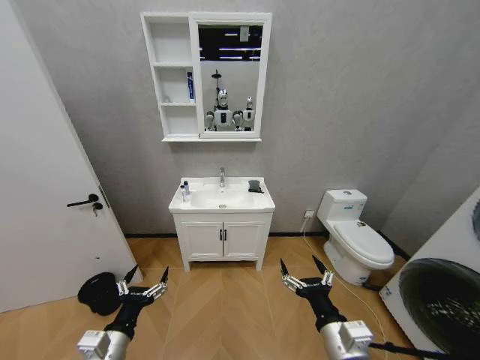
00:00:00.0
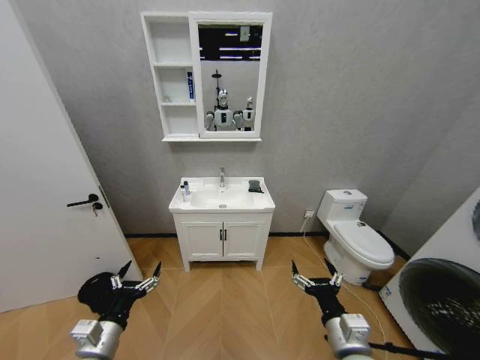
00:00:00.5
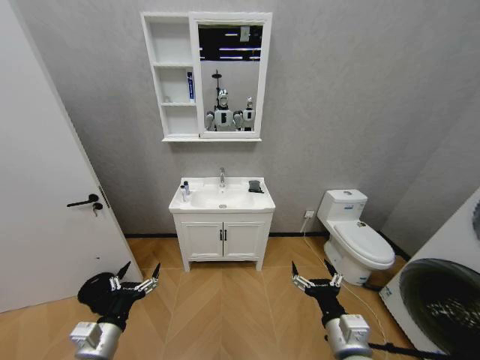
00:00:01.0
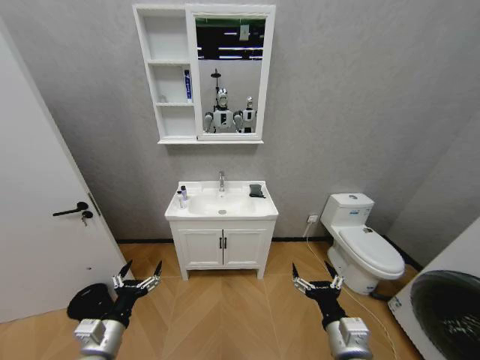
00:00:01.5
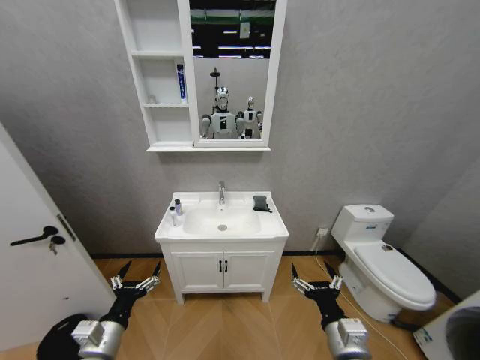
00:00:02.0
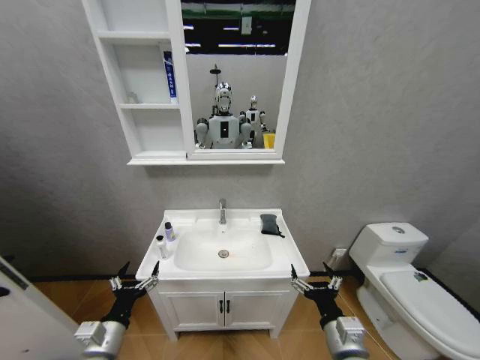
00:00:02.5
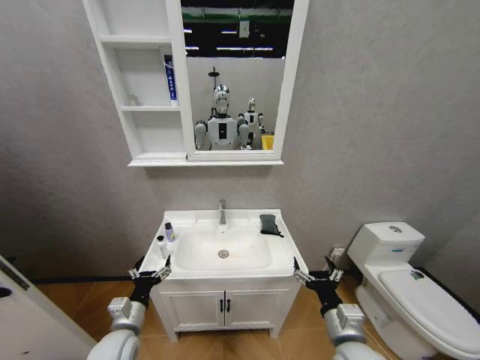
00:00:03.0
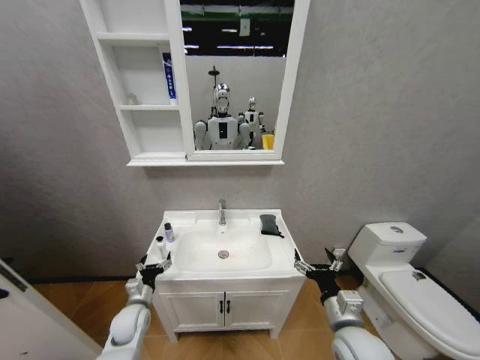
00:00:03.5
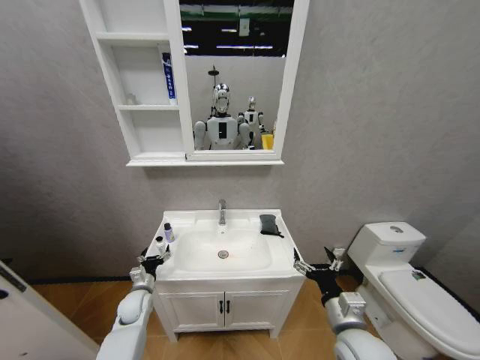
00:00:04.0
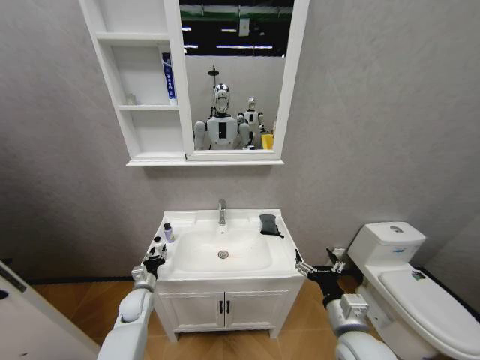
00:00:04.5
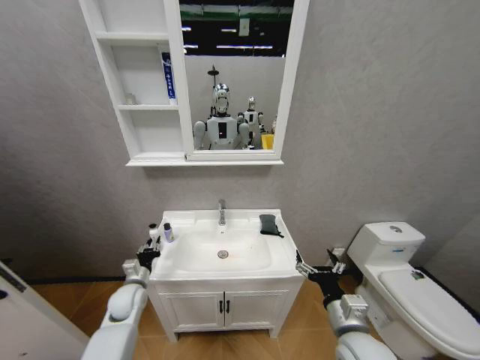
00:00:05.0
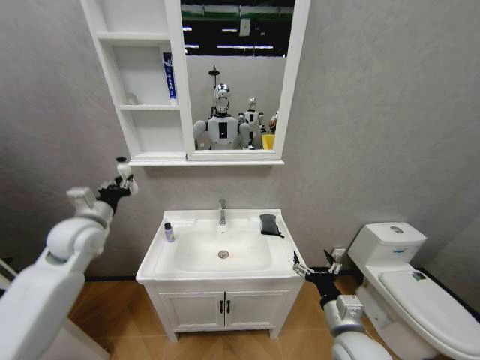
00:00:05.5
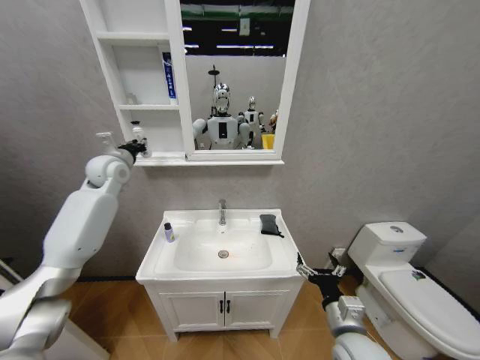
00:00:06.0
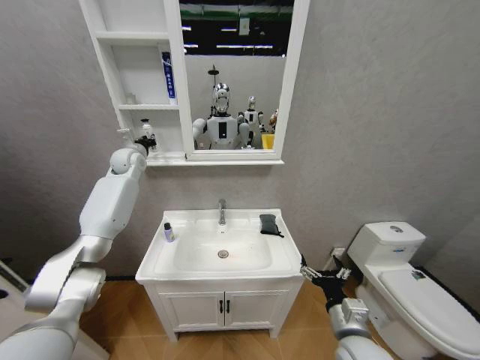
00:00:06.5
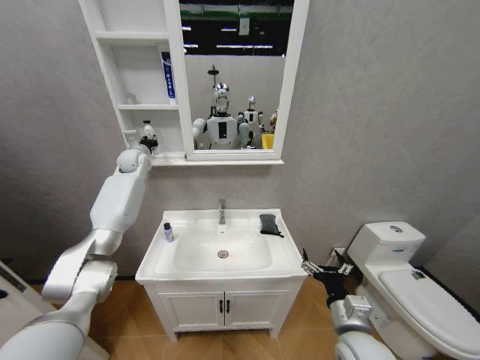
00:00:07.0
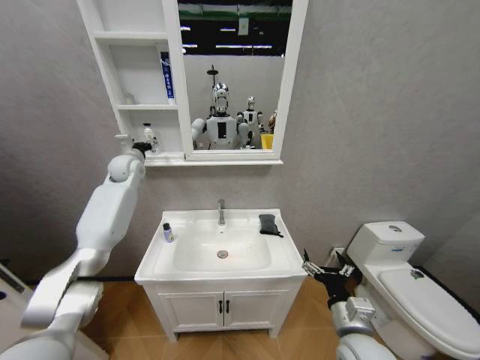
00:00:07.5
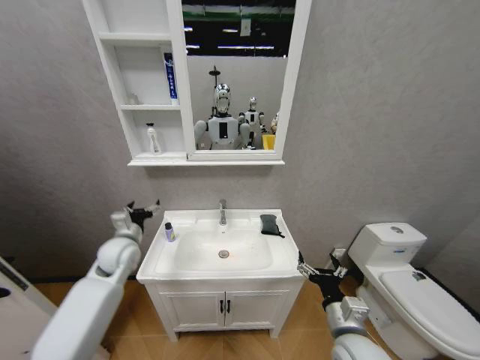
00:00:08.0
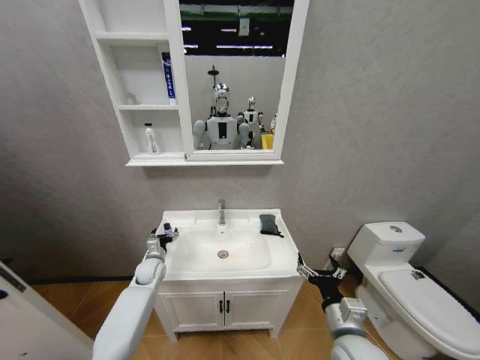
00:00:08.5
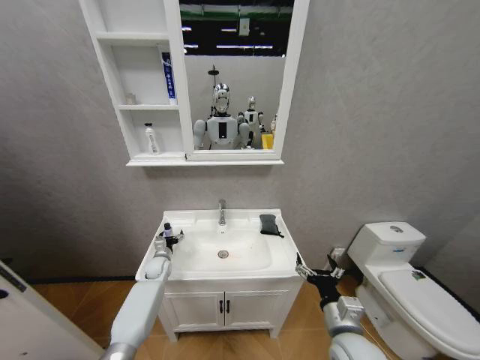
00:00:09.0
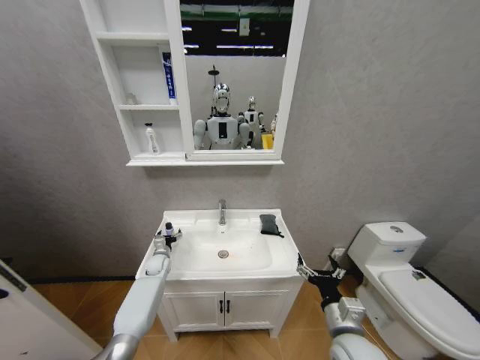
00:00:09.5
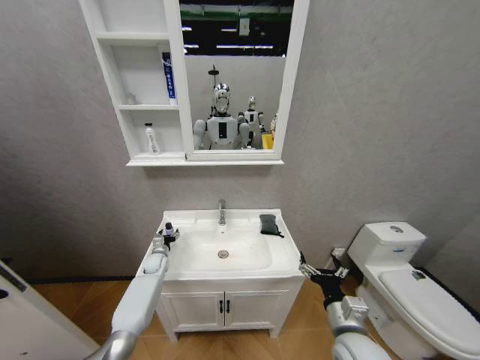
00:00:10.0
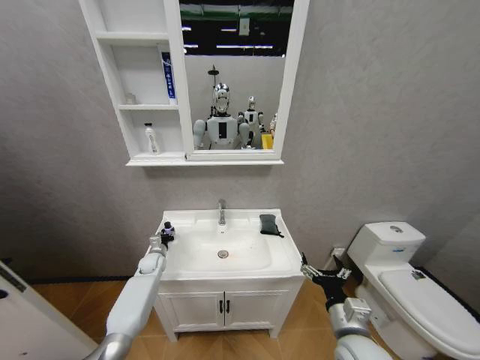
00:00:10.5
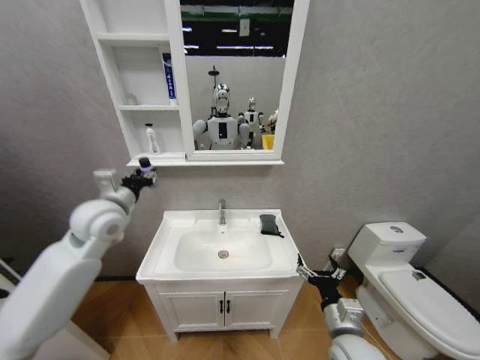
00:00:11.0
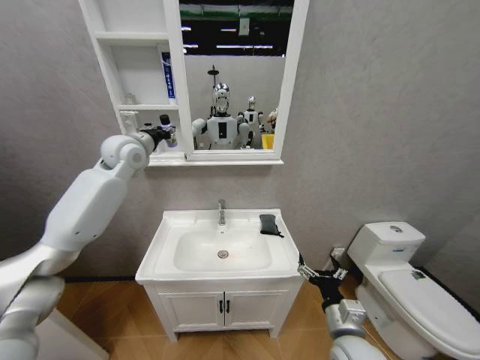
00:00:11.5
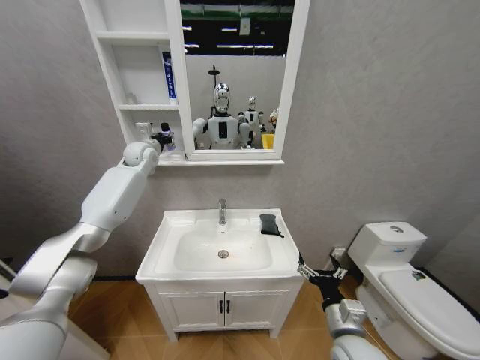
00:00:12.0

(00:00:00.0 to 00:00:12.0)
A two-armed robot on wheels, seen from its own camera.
Task of the whole recording: Move facial cleanser and shampoo from washbasin to cabinet, then wipe washbasin with towel.
00:00:02.0 - 00:00:04.0: The left gripper is displaced forward and downward by roughly 20 cm. Meanwhile the right gripper changes place by about 5 cm.
00:00:04.0 - 00:00:06.0: The left gripper travels upward and forward by roughly 40 cm, and closes up.
00:00:06.0 - 00:00:08.0: The left gripper travels downward and backward by about 20 cm, and opens its fingers.
00:00:08.0 - 00:00:10.0: The left gripper goes some 25 cm downward and forward.
00:00:10.0 - 00:00:12.0: The left gripper heads upward, covering about 40 cm, and closes up.

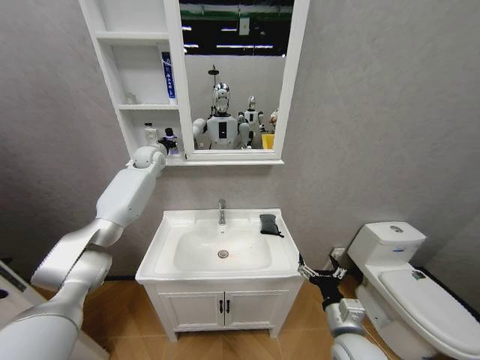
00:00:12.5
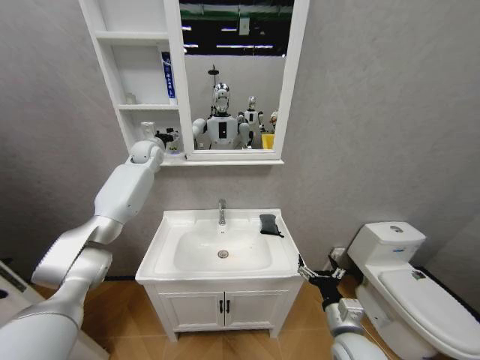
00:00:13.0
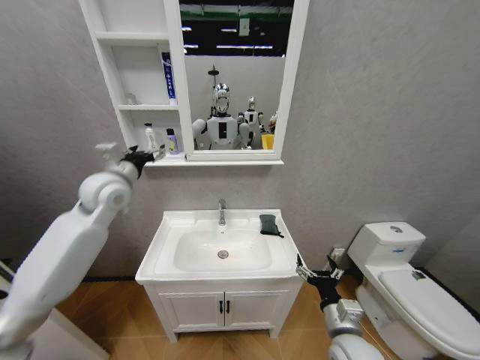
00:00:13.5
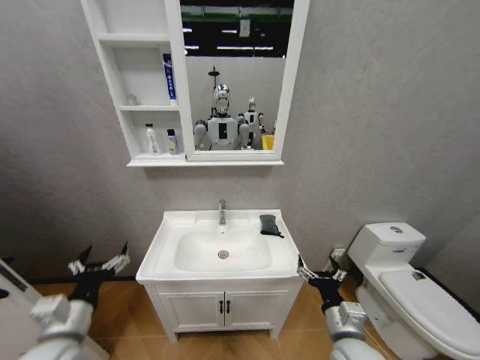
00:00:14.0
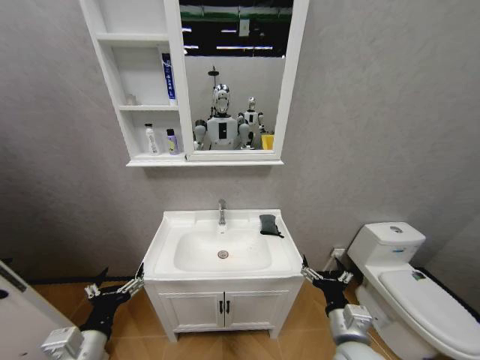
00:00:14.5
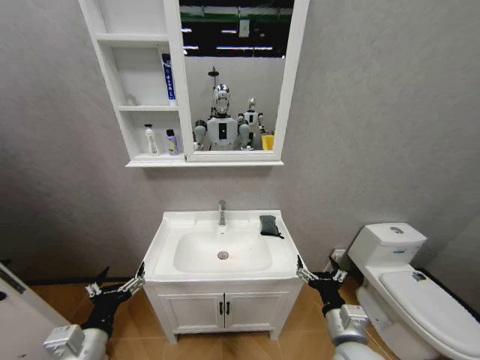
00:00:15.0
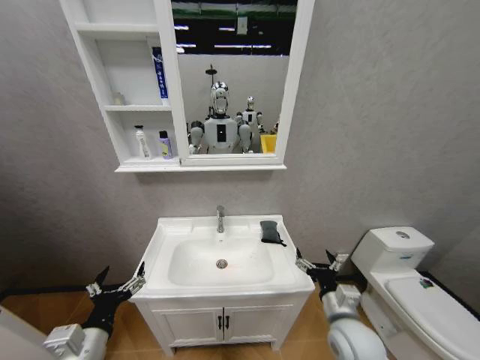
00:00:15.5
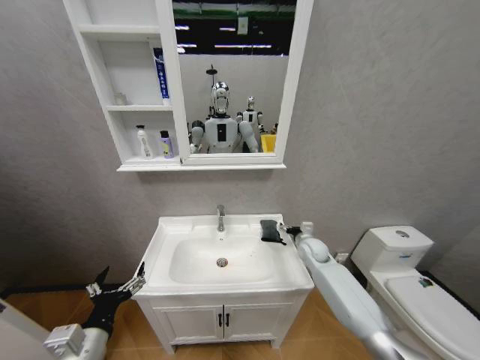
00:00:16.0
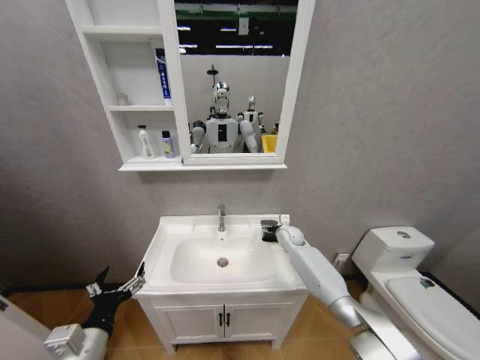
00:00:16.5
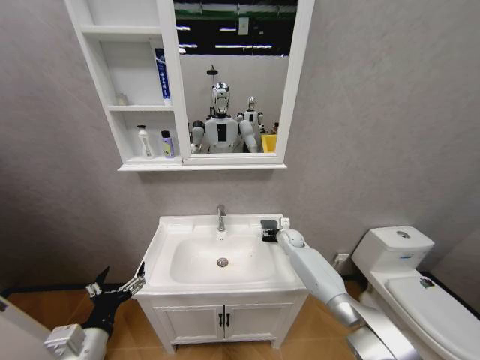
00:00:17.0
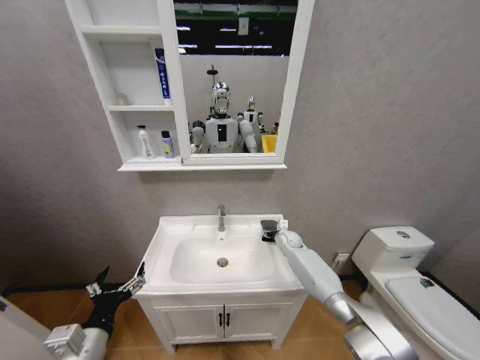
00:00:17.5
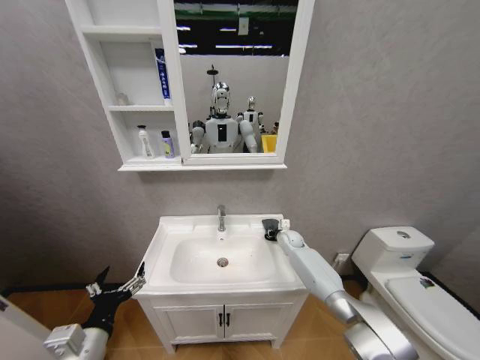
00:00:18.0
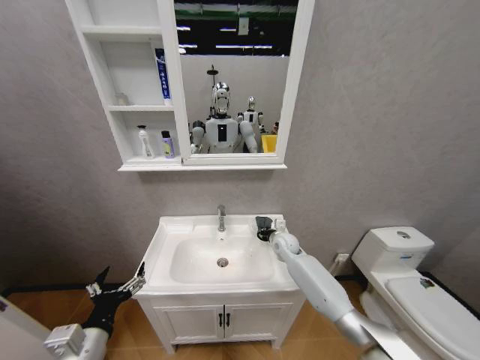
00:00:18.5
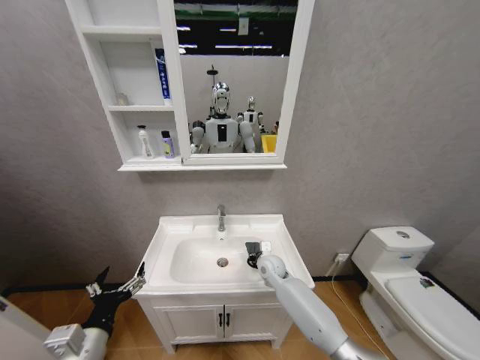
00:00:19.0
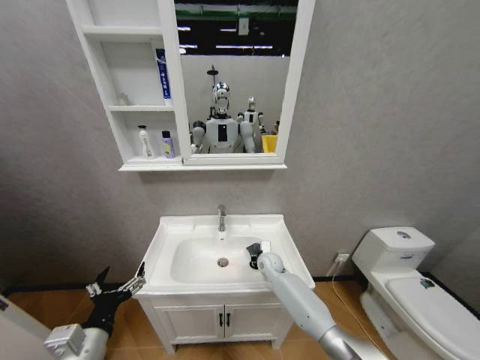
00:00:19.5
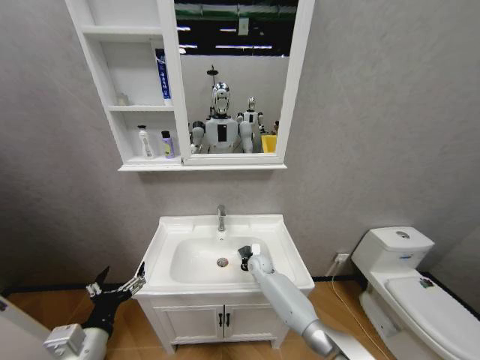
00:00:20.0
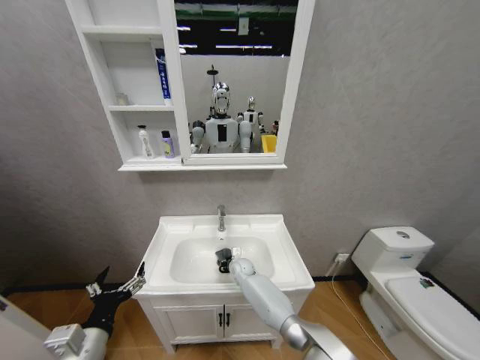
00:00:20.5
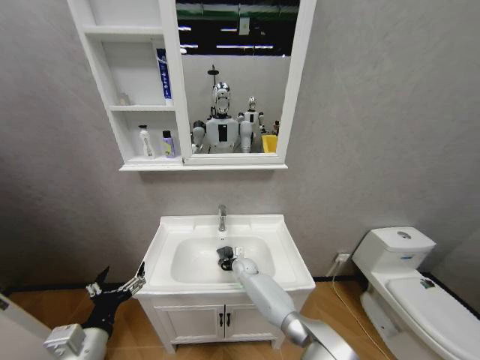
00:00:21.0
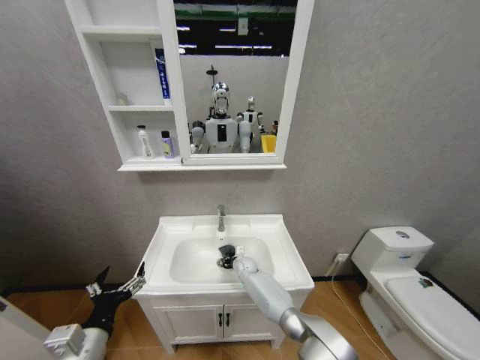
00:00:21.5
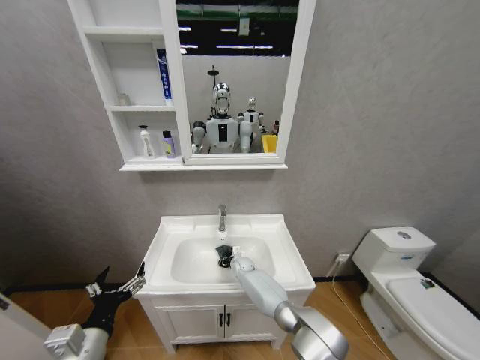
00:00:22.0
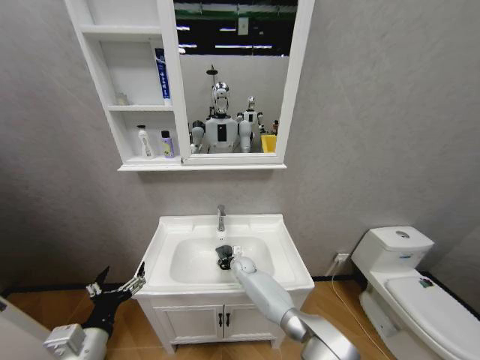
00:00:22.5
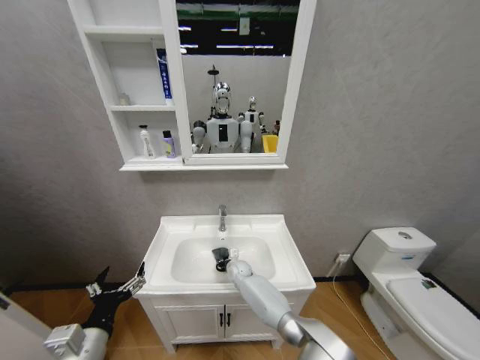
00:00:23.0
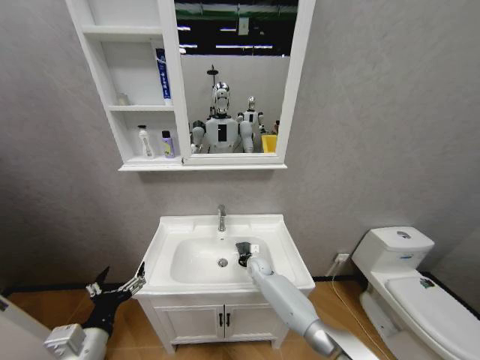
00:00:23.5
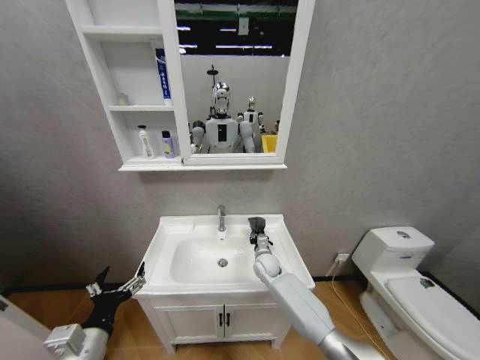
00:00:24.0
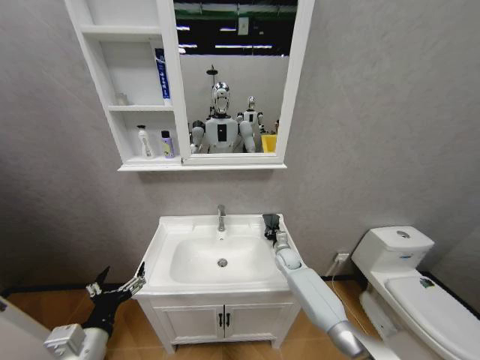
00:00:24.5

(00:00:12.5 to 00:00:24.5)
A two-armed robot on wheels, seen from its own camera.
Task of the whole recording: Move facial cleanser and shampoo from washbasin to cabinet, then wipe washbasin with towel.
00:00:12.5 - 00:00:14.5: The left gripper goes approximately 50 cm backward, and opens its fingers.
00:00:14.5 - 00:00:16.5: The right gripper travels forward by some 40 cm.
00:00:16.5 - 00:00:18.5: The right gripper shifts by some 5 cm, and closes up.
00:00:18.5 - 00:00:20.5: The right gripper goes about 20 cm to the left and downward.
00:00:20.5 - 00:00:22.5: The grippers make only small movements.
00:00:22.5 - 00:00:24.5: The right gripper moves to the right, approximately 20 cm.

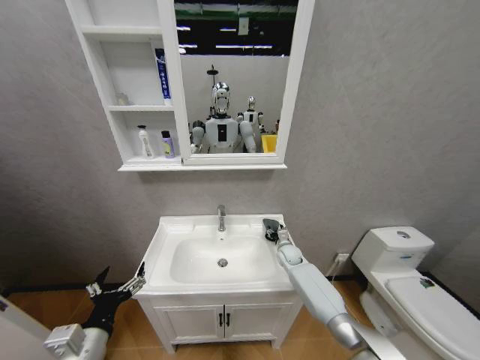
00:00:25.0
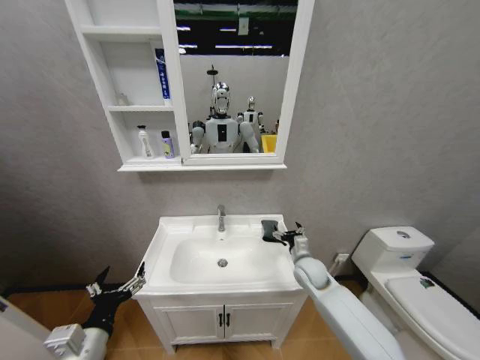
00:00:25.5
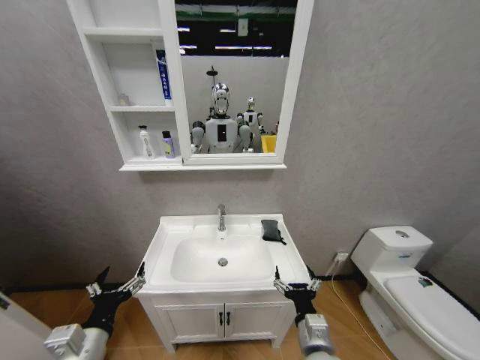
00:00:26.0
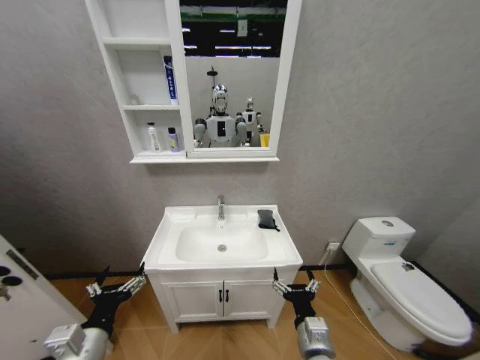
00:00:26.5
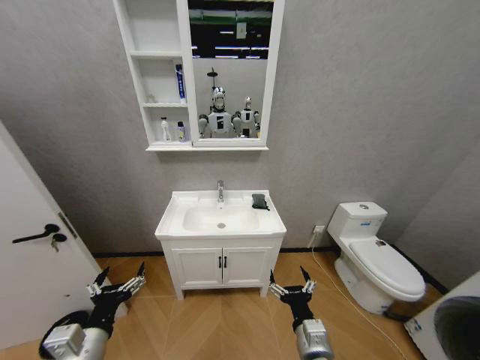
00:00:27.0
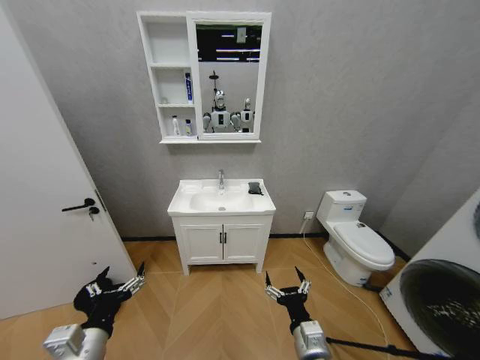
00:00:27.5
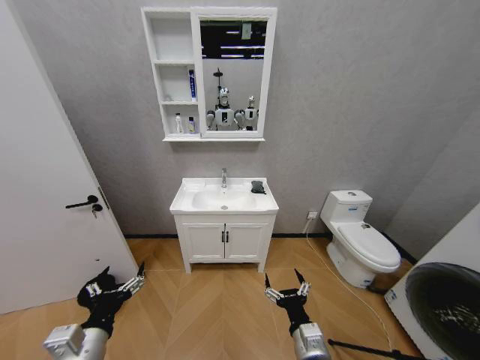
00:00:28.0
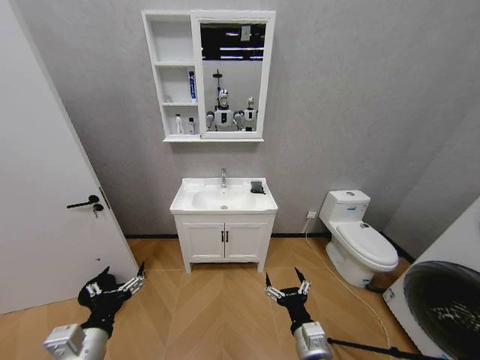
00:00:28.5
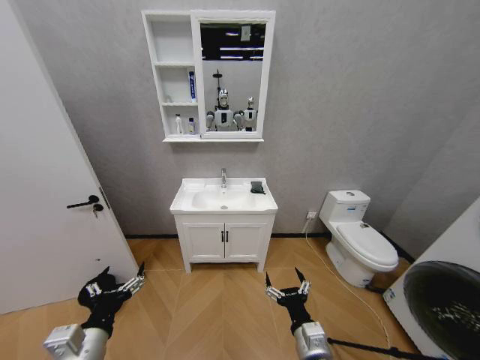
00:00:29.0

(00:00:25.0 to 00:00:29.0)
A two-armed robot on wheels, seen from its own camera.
Task of the whole recording: Move facial cleanser and shampoo from washbasin to cabinet, then wipe washbasin with towel.
00:00:25.0 - 00:00:27.0: The right gripper heads backward, covering some 35 cm, and opens.
